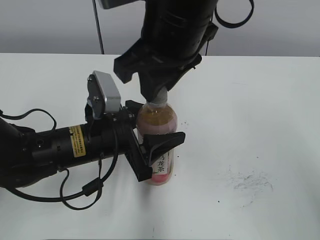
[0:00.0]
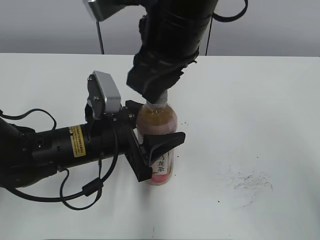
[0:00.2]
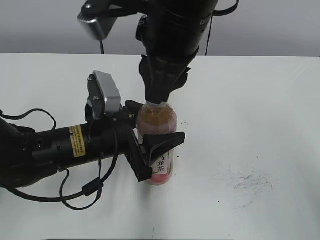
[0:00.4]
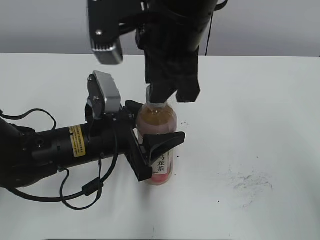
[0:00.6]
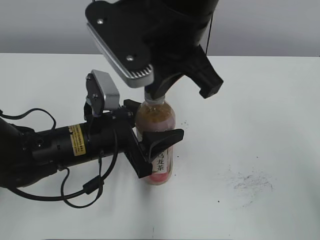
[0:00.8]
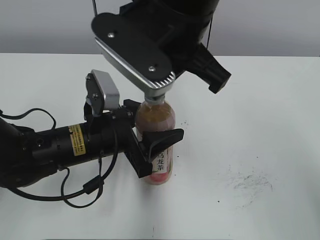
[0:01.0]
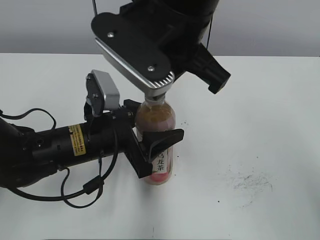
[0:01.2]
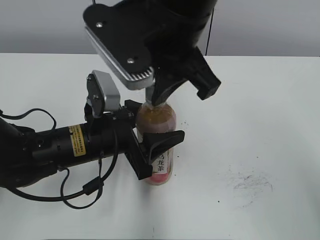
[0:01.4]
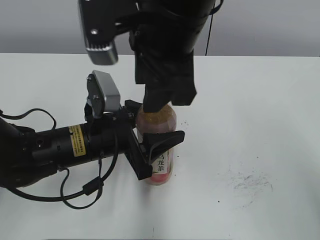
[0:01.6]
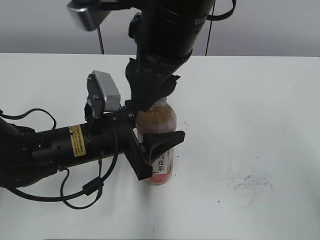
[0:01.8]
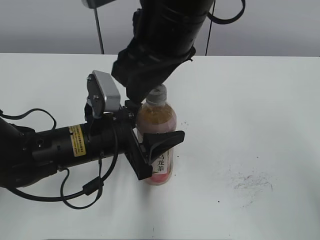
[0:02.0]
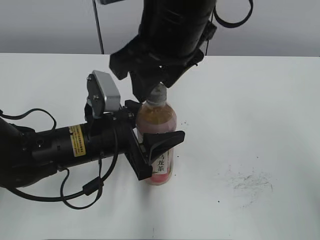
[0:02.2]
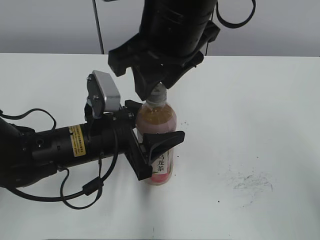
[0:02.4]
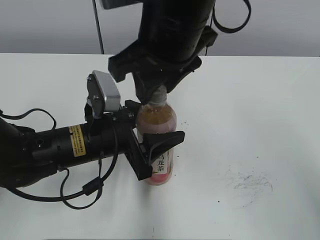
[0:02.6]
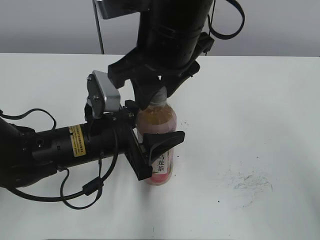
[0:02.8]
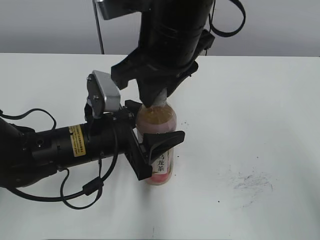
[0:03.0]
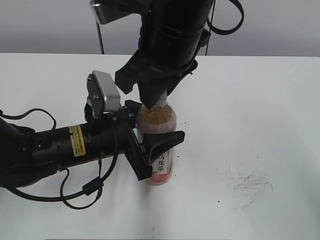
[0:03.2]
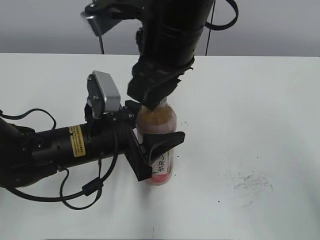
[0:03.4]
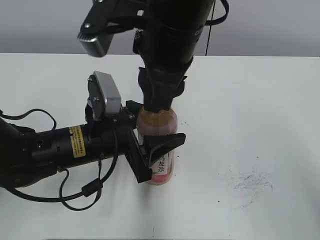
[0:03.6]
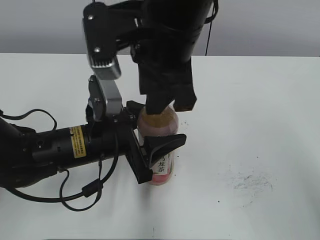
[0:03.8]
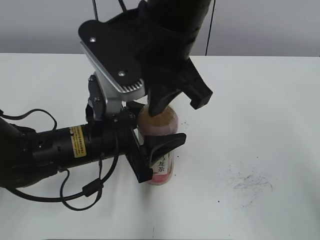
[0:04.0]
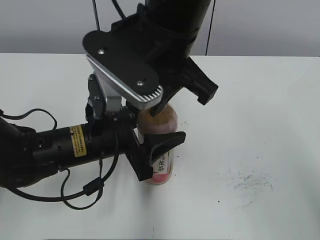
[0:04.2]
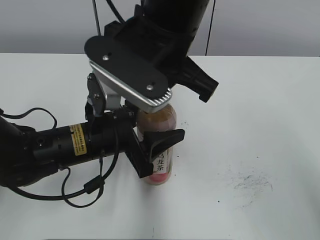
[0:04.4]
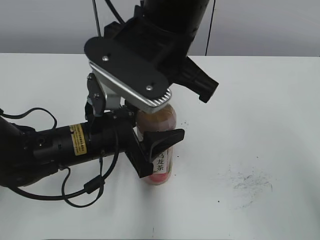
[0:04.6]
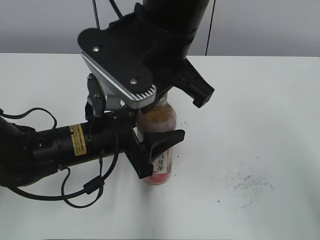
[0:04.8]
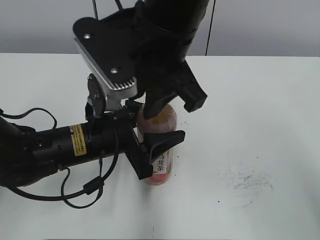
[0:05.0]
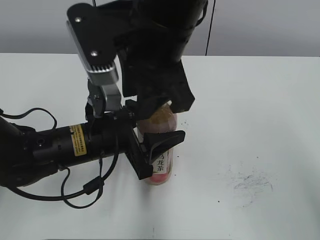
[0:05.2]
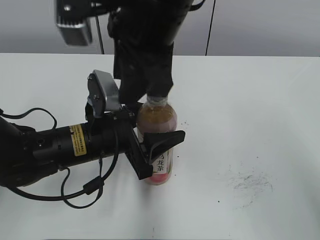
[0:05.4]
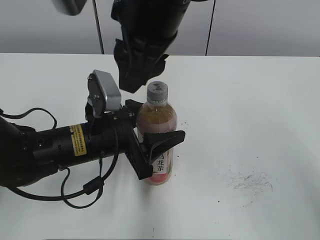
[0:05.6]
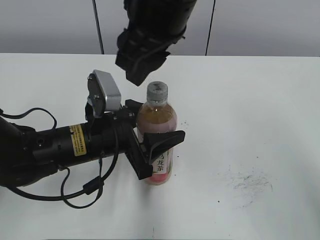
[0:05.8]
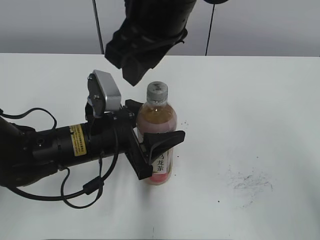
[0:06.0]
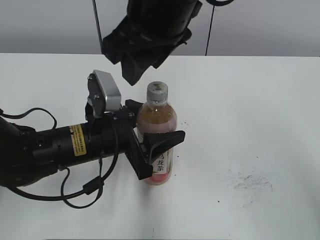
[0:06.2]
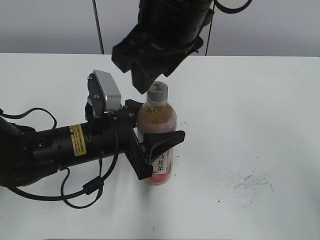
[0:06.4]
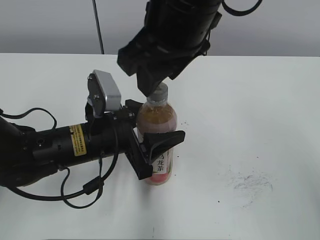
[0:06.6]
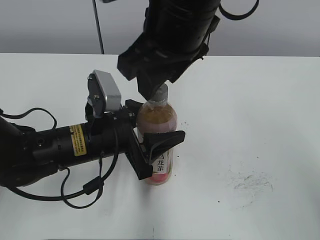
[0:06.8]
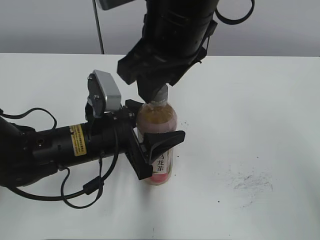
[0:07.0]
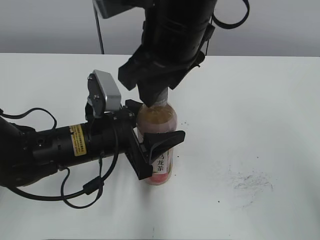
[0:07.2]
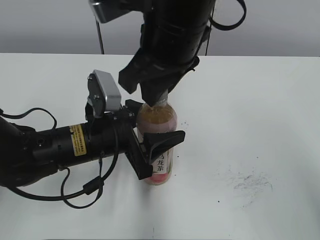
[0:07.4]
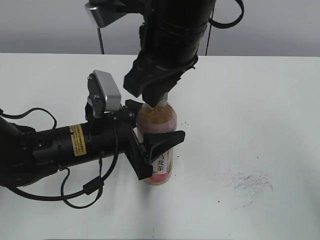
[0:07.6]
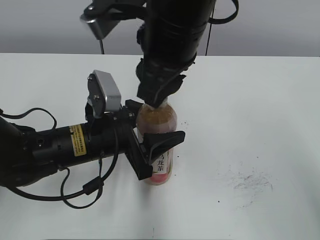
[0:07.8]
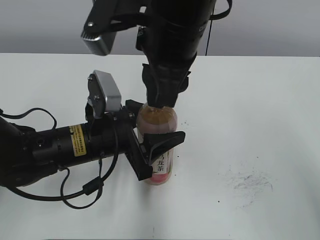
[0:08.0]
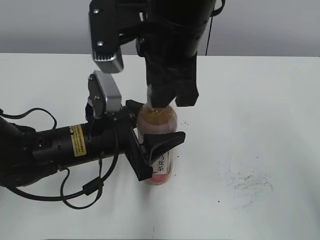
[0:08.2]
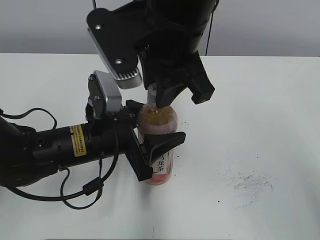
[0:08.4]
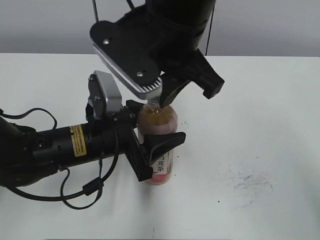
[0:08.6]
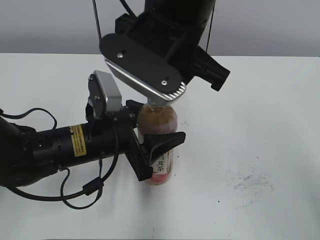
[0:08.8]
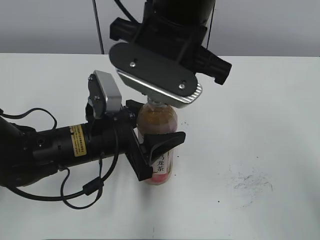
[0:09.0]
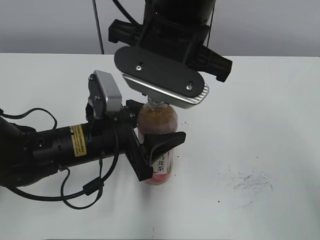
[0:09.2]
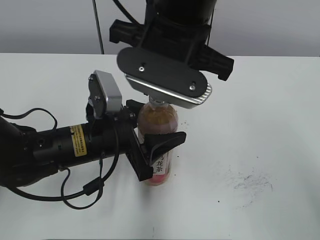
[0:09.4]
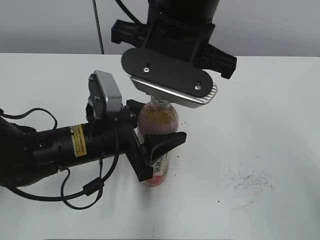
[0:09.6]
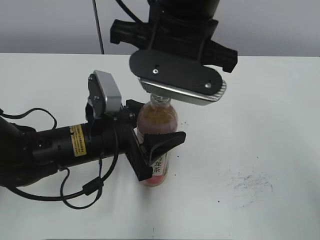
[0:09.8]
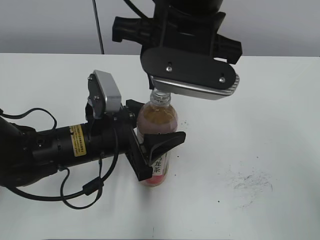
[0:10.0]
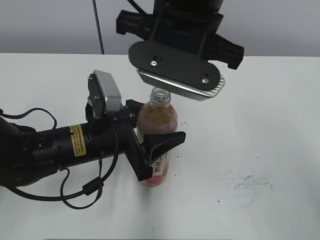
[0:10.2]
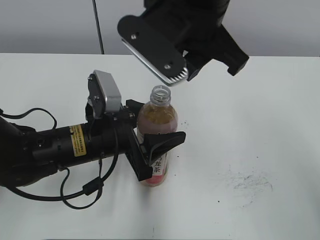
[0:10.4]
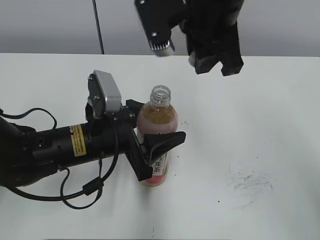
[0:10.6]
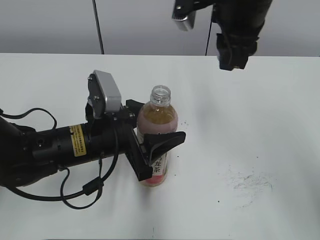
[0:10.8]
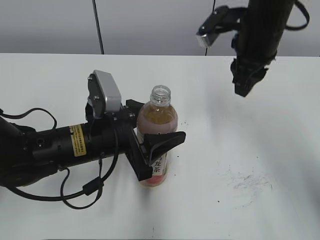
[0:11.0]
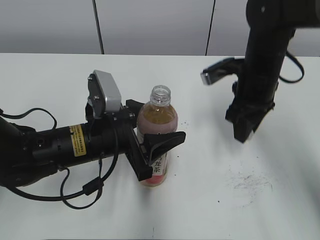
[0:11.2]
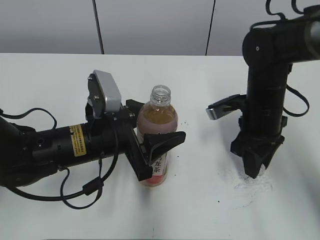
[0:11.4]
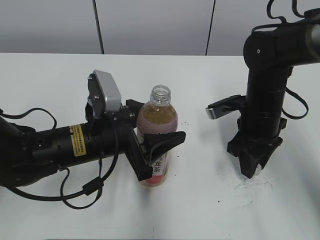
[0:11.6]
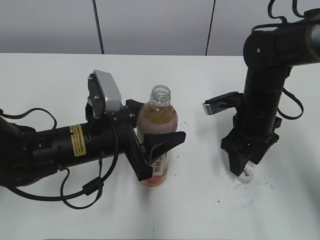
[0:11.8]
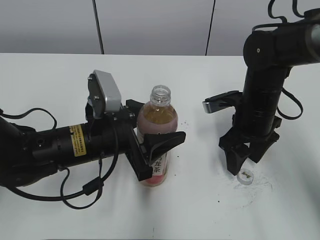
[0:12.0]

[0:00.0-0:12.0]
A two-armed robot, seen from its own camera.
0:00.0 to 0:01.6: The right gripper closes and opens again.
0:03.0 to 0:04.4: The right gripper closes its fingers.
0:04.4 to 0:06.0: The right gripper opens.
0:06.0 to 0:07.6: The grippers make only small movements.
0:10.4 to 0:12.0: The right gripper heads downward and to the right, covering approximately 25 cm, and opens its fingers.

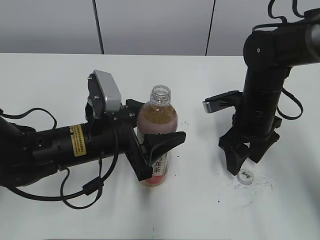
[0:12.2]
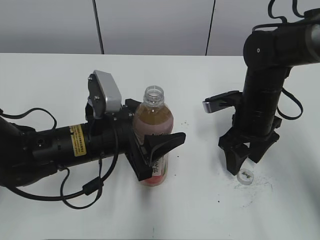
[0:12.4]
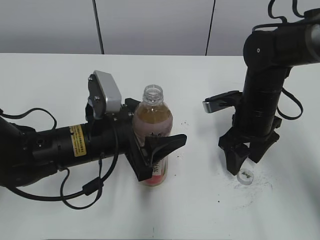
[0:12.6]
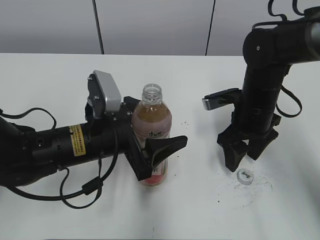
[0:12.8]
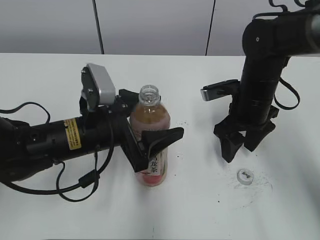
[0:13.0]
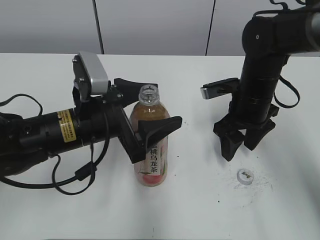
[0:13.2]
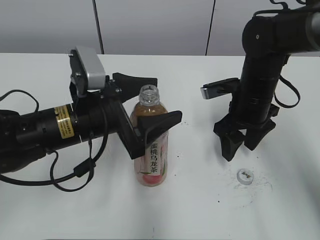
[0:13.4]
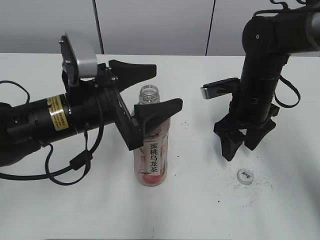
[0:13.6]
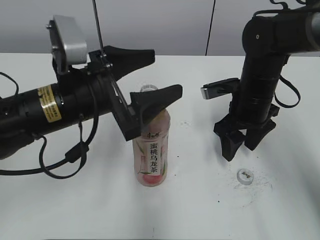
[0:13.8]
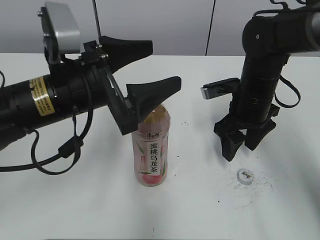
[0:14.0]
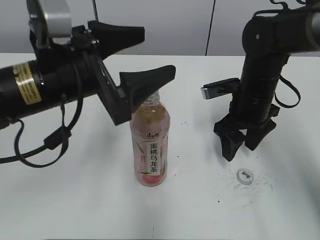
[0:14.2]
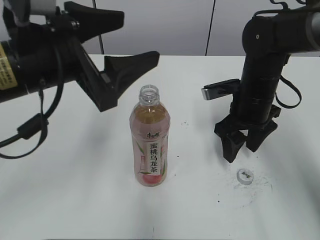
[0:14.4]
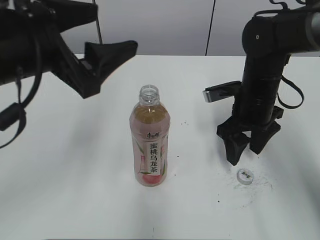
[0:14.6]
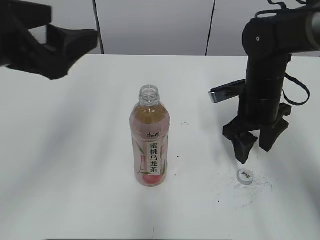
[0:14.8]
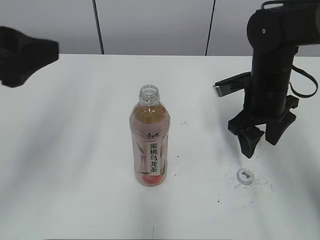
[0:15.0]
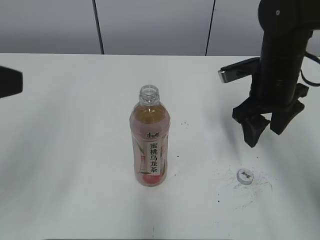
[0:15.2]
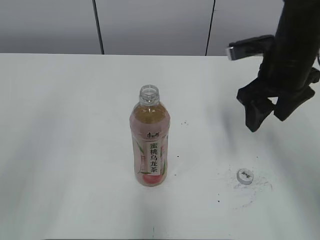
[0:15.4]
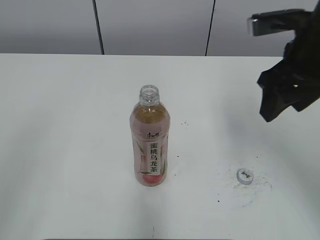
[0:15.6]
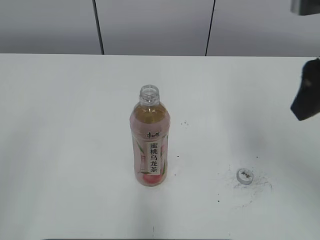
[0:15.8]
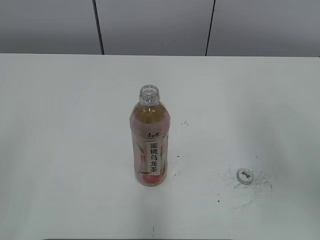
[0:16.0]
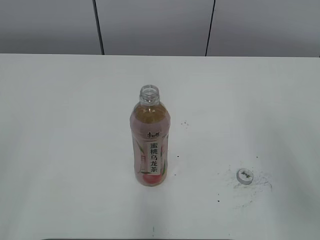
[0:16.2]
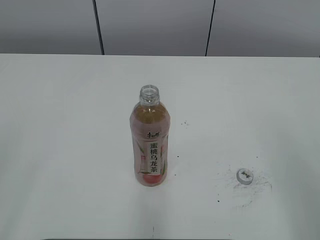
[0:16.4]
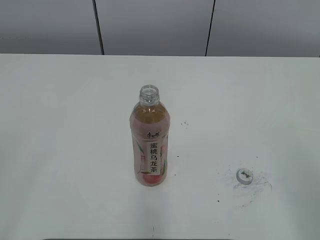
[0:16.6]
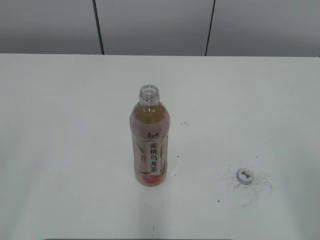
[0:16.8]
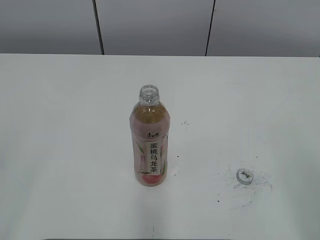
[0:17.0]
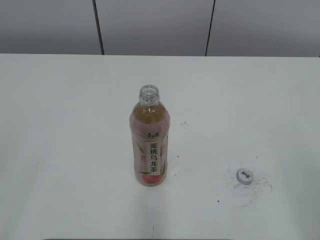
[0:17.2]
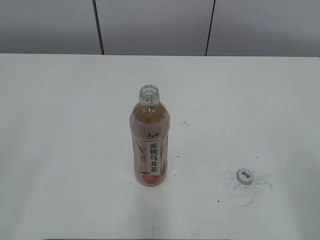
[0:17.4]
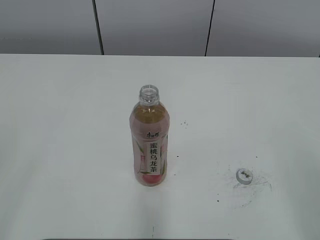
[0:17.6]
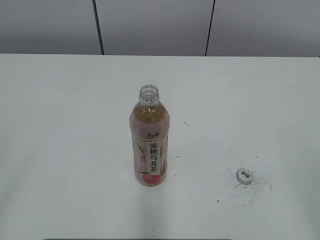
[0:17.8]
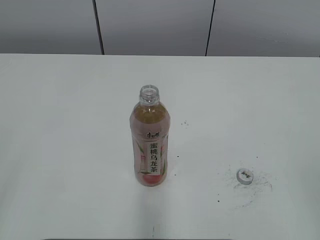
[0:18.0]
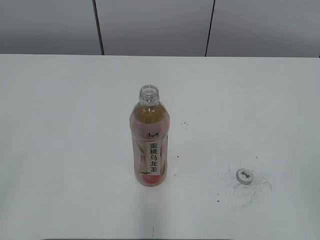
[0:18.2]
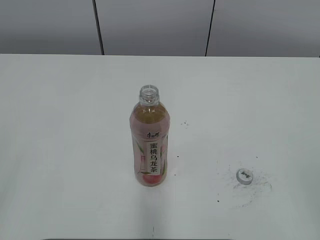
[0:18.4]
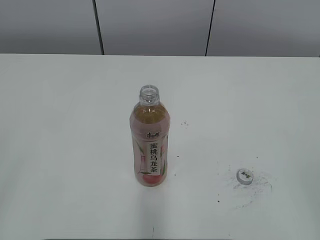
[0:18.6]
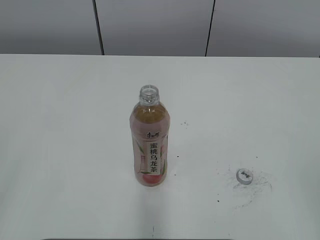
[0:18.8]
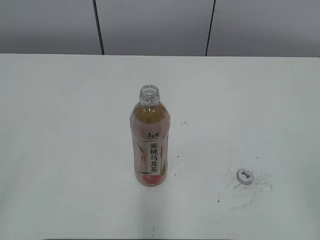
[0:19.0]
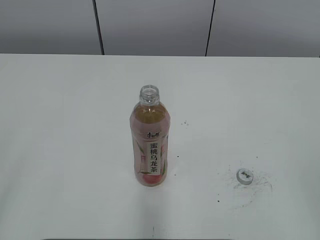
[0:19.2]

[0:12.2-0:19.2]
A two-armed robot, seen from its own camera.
Step, 0:13.4 to 0:14.4: Place the Peach Oolong Tea with the left hand.
0:12.2 to 0:13.6: The left gripper moves some 5 cm, and opens its fingers.
0:13.6 to 0:15.0: The left gripper is displaced upward, to the left and backward by about 20 cm.
0:15.0 to 0:16.4: The right gripper is displaced backward and upward by some 30 cm. The left gripper is displaced backward and to the left by approximately 20 cm.

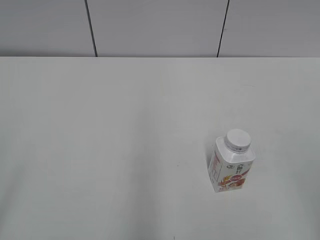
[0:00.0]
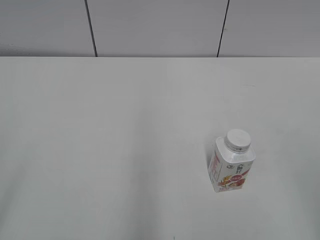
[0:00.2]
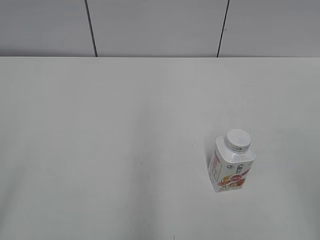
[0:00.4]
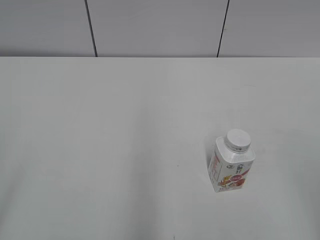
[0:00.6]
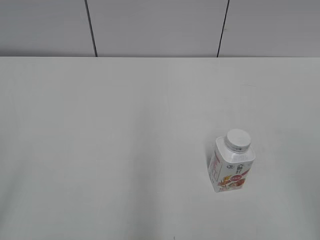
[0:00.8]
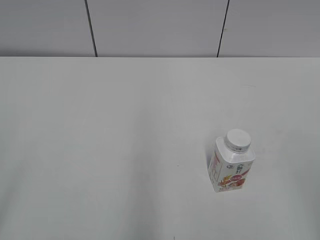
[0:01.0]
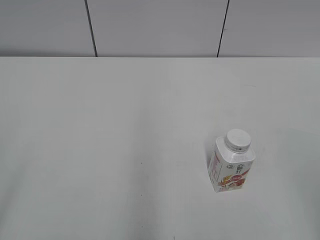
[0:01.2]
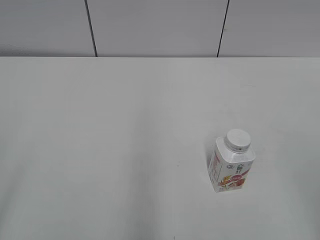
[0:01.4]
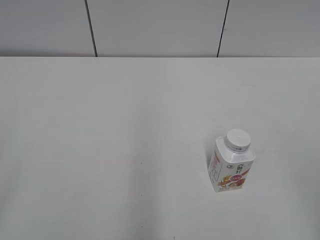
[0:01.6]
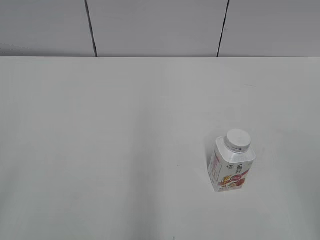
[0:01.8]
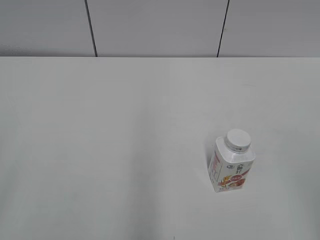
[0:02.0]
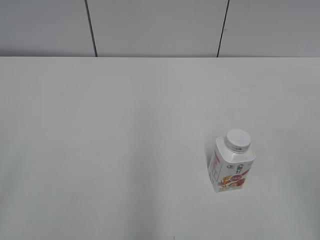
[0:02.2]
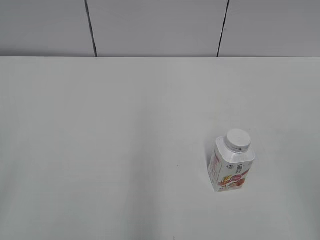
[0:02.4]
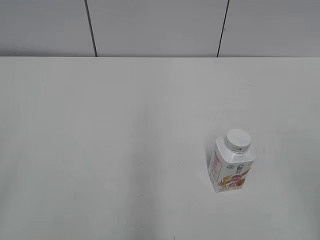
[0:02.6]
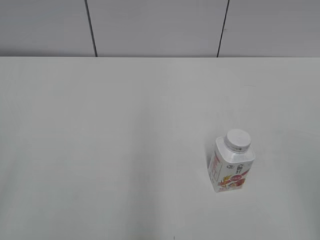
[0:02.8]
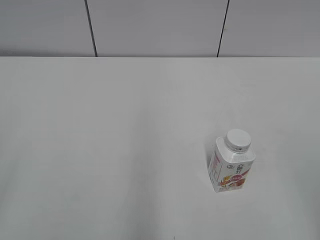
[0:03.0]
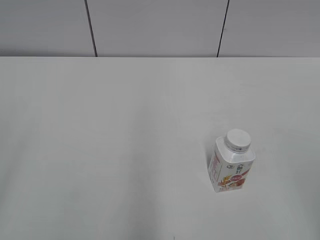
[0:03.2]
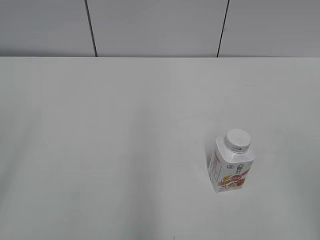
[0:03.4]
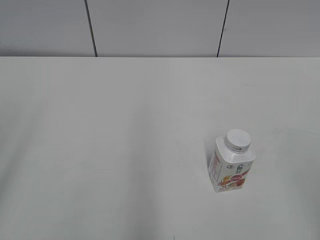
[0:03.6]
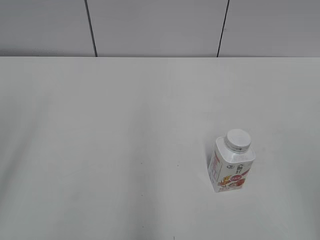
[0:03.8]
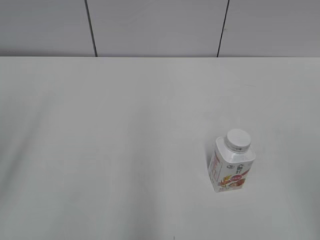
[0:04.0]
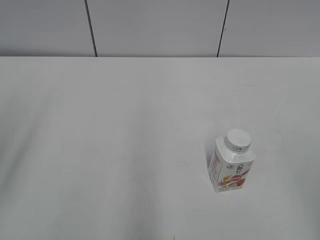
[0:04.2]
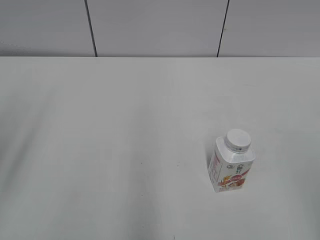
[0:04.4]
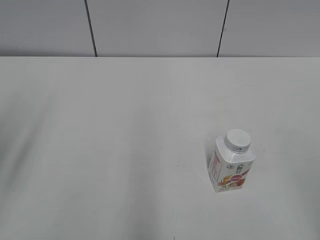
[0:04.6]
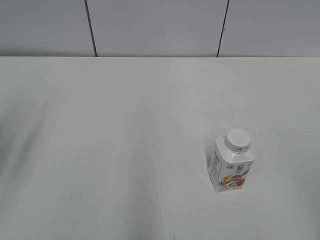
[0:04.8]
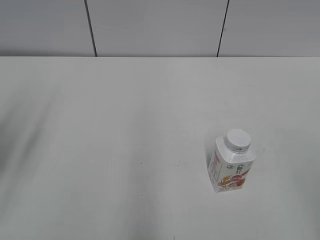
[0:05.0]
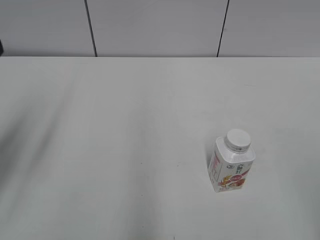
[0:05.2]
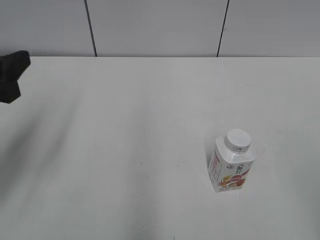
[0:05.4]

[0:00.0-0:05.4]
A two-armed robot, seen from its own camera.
0:04.0 to 0:05.4: The left gripper heads forward and downward, covering some 10 cm, and closes up.
